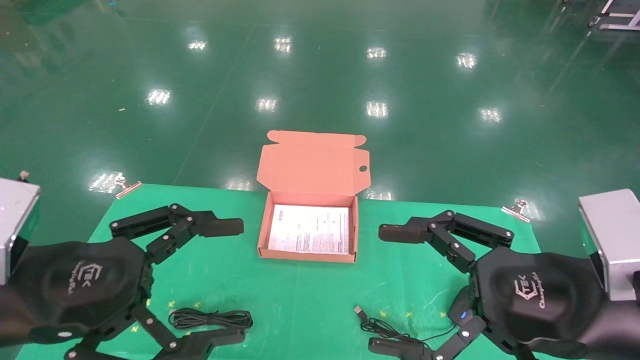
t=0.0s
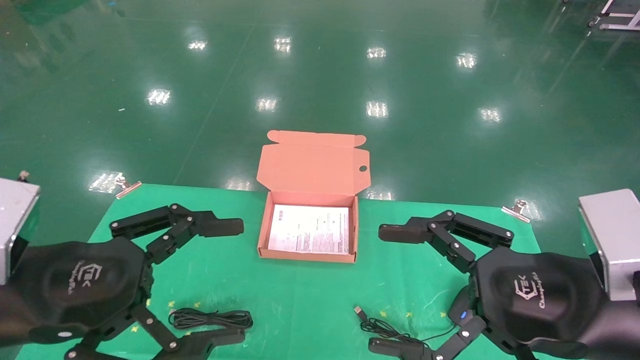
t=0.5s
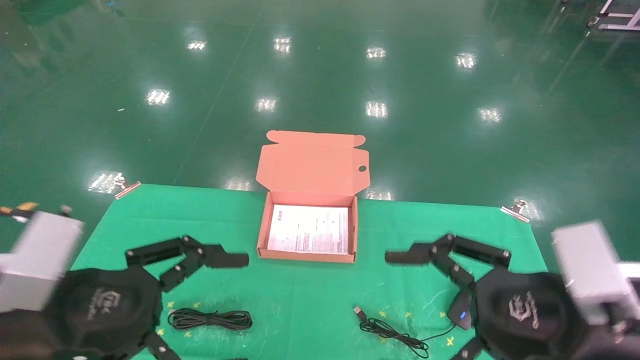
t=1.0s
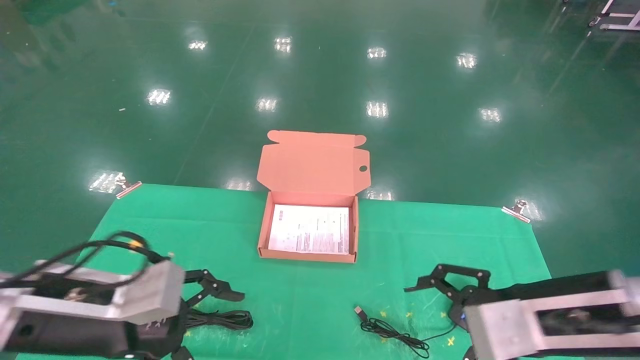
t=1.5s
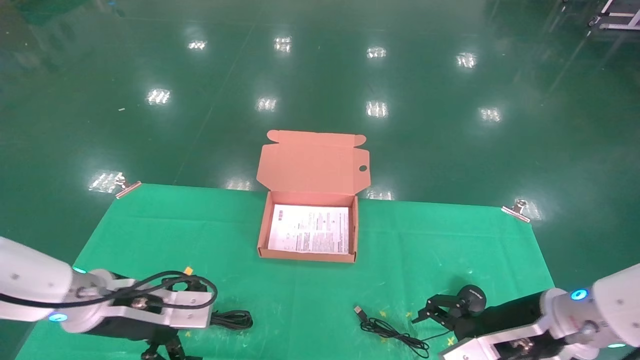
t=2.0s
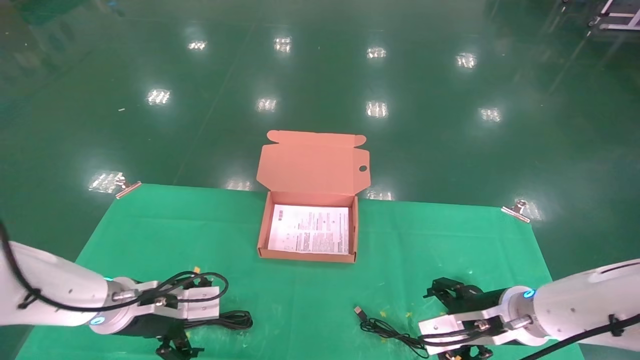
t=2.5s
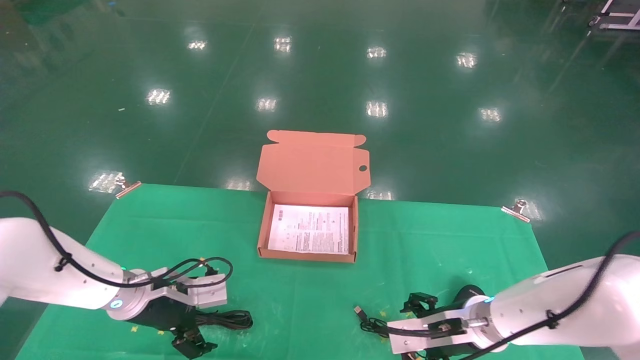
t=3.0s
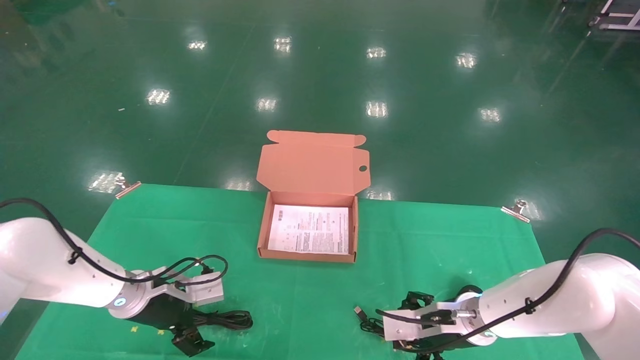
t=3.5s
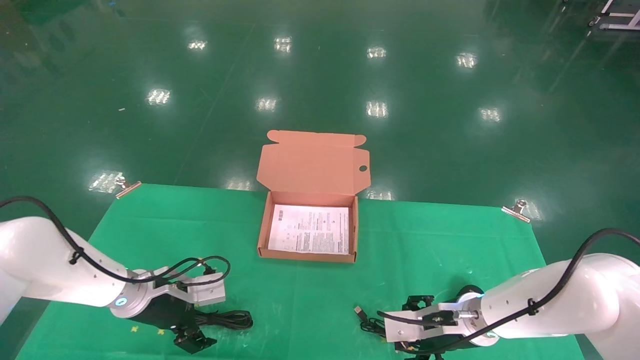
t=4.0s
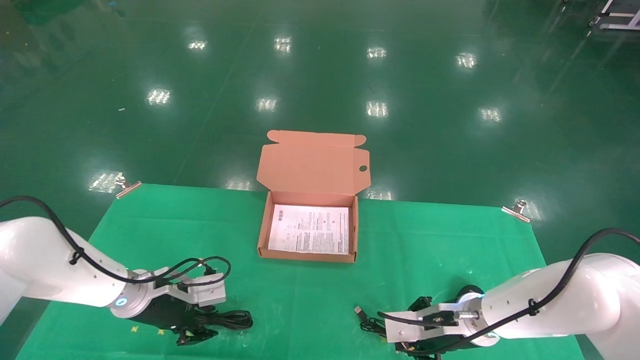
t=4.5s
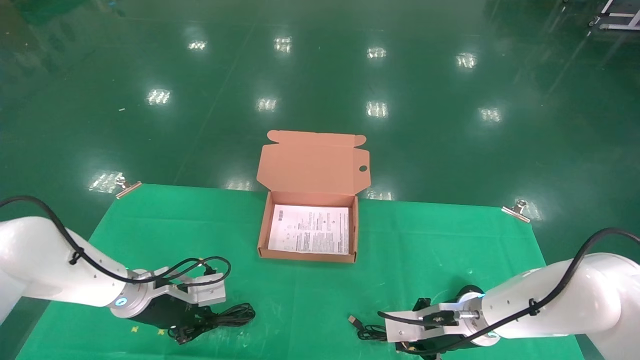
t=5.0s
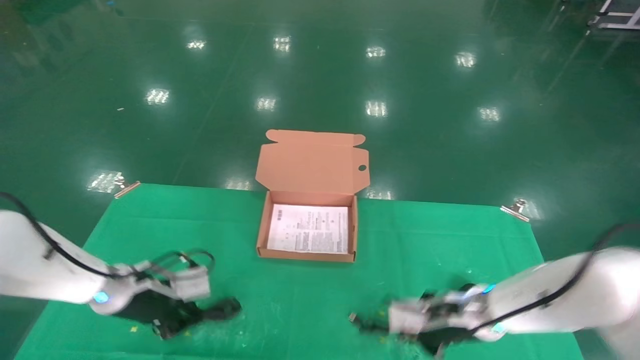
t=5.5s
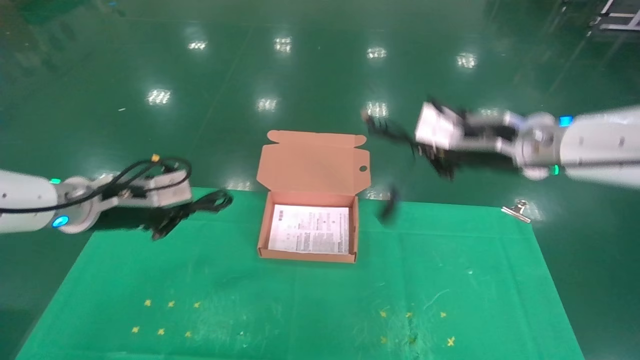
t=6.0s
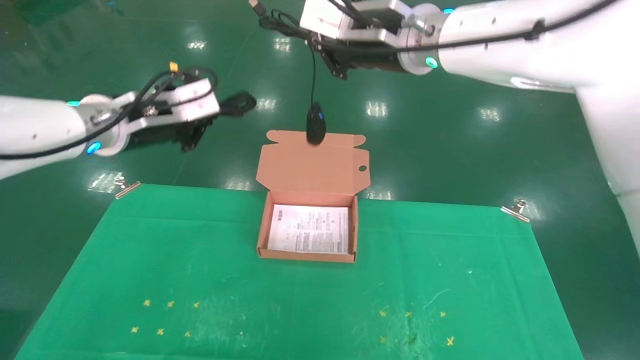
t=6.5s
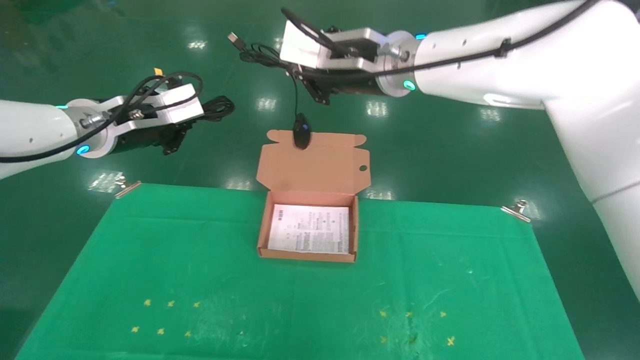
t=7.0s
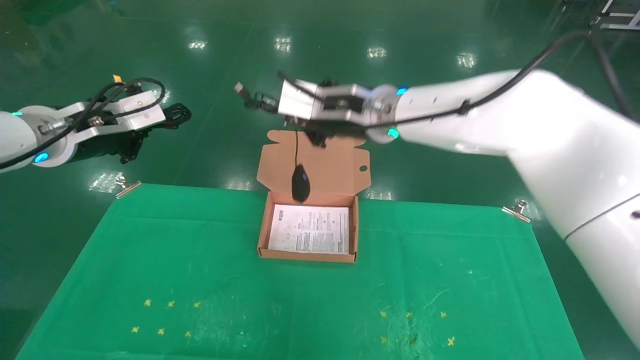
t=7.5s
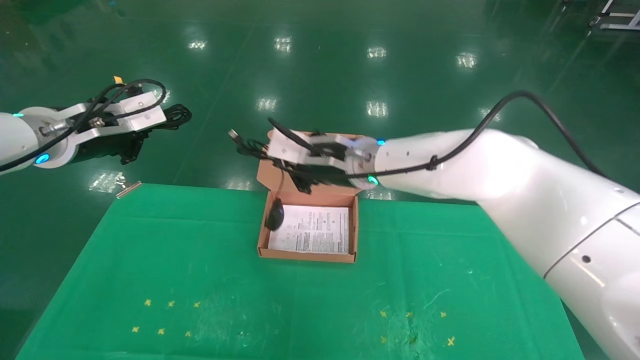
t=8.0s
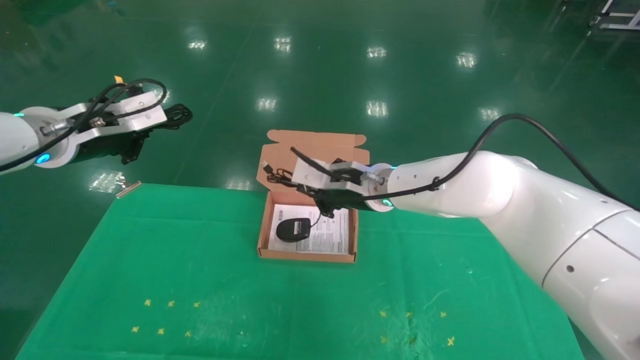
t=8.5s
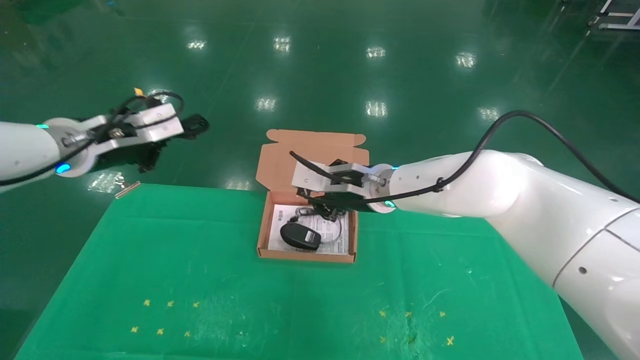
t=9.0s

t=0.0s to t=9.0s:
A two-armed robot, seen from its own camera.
Task of the whole recording: grasp data cable left put into box grasp mouse right put into box.
Step, t=1.0s to t=5.0s: Grab and pick up both the mouse and power cord from the accessory packaging area at the same time.
t=0.0s to t=2.0s: The two grippers go some 15 cm forward and downward.
t=2.0s to t=4.5s: The two grippers go roughly 10 cm forward and downward. The right gripper closes its fingers, while the left gripper closes up.
t=4.5s to t=7.0s: The grippers both shift upward by about 30 cm. The left gripper closes its fingers, while the right gripper closes its fingers.
t=7.0s to t=9.0s: The right gripper heads downward, covering about 15 cm.

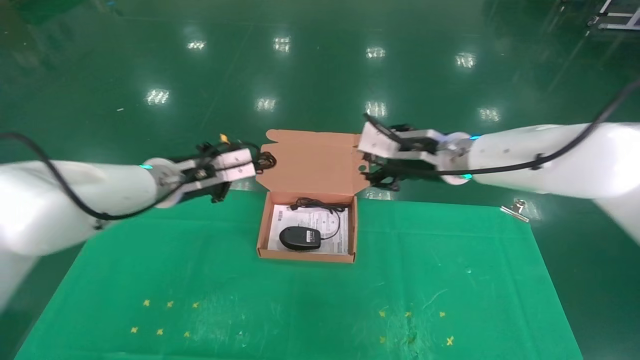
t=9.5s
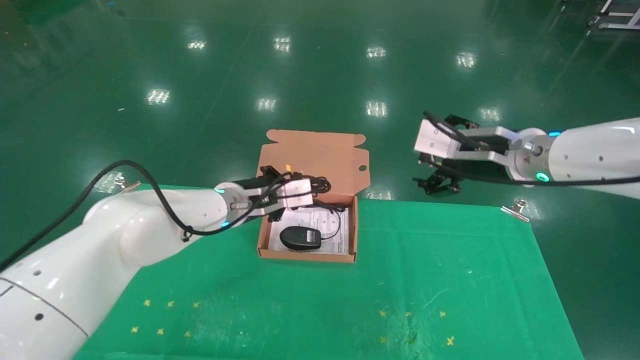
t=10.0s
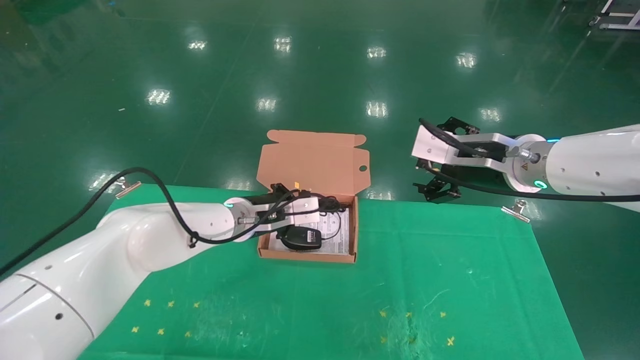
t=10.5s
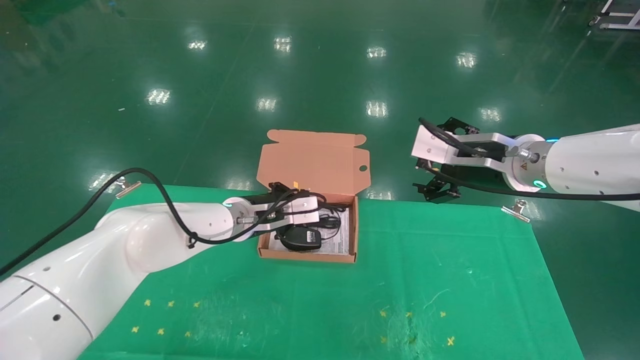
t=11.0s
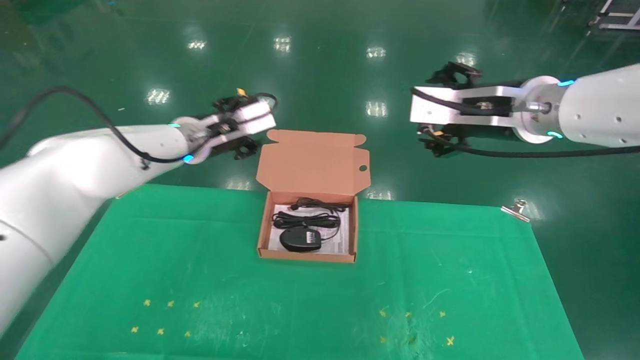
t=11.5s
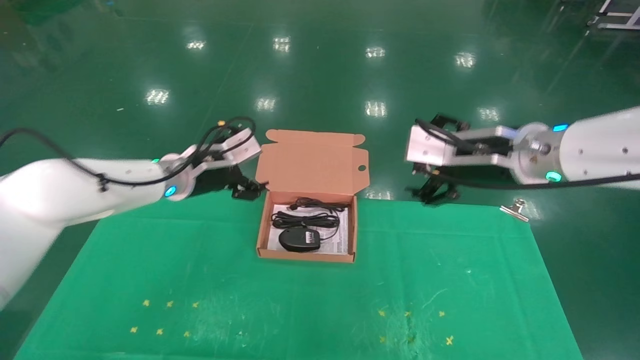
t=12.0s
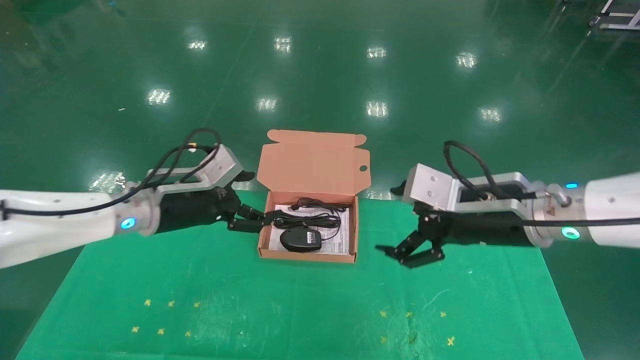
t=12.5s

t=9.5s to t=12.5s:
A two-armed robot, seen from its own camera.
Task of the whole recording: grasp data cable left put into box grasp mouse right put into box.
t=9.5s to t=11.0s: The right gripper heads to the right and backward, covering some 10 cm, and opens its fingers, while the left gripper moves to the right and downward, some 10 cm.
t=11.0s to t=12.5s: The left gripper shifts roughly 10 cm to the left and backward, and opens. Meanwhile the right gripper changes place by about 5 cm.

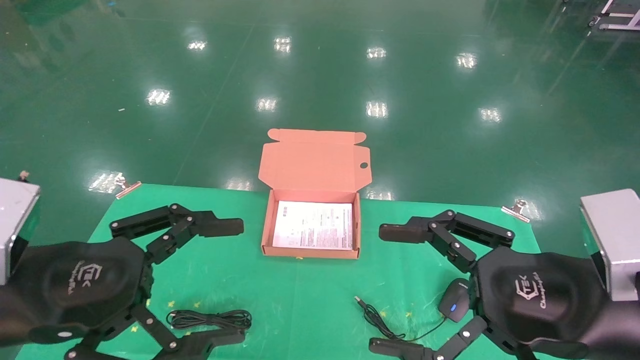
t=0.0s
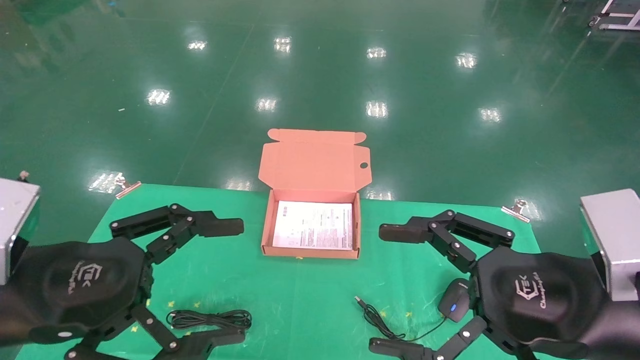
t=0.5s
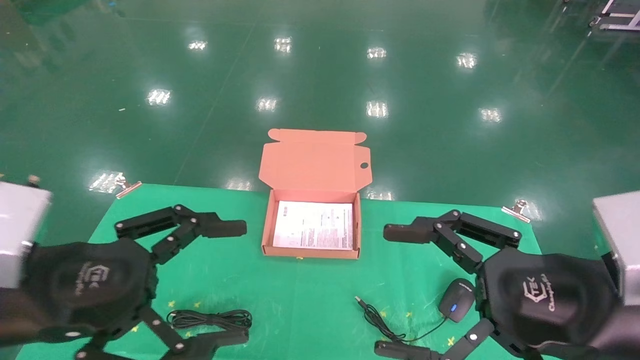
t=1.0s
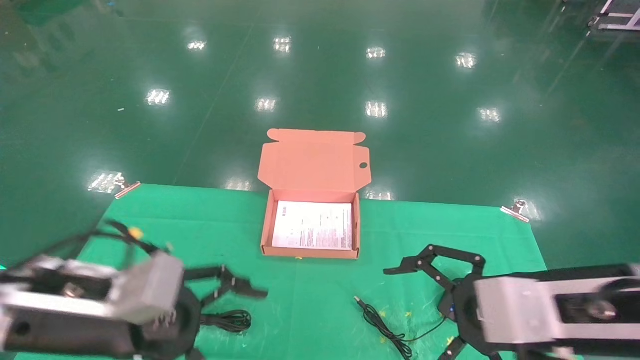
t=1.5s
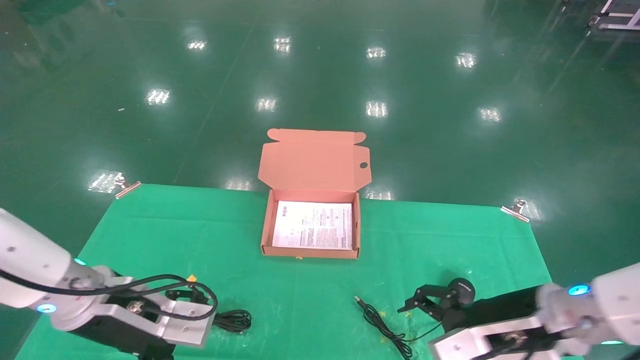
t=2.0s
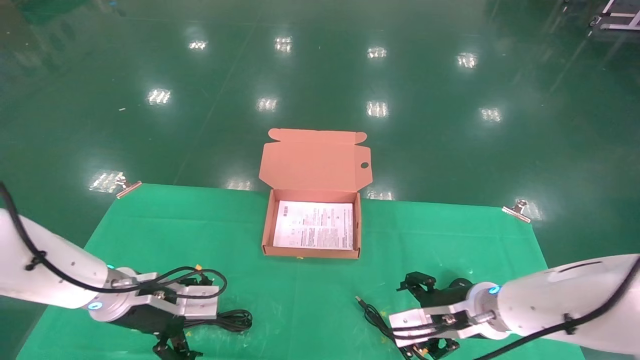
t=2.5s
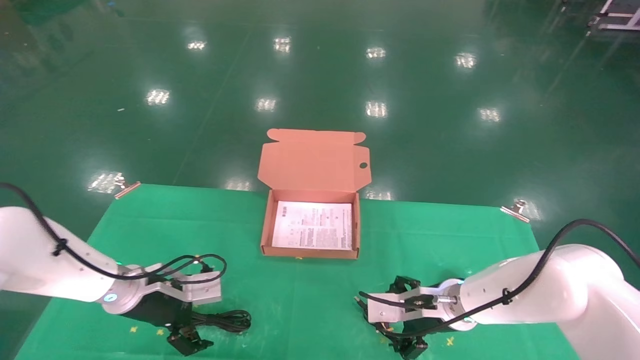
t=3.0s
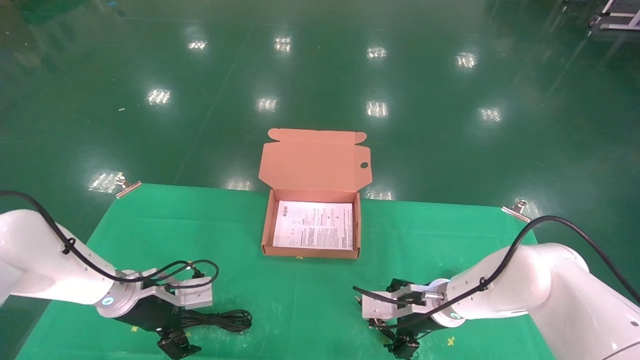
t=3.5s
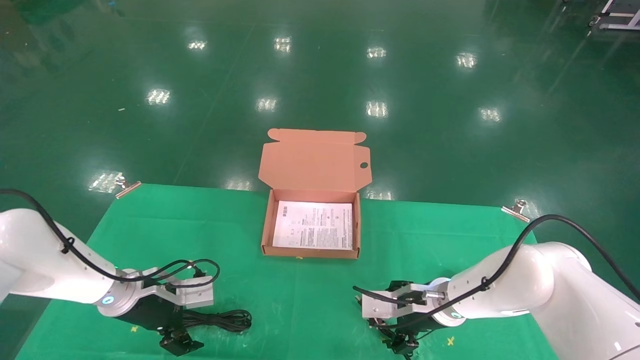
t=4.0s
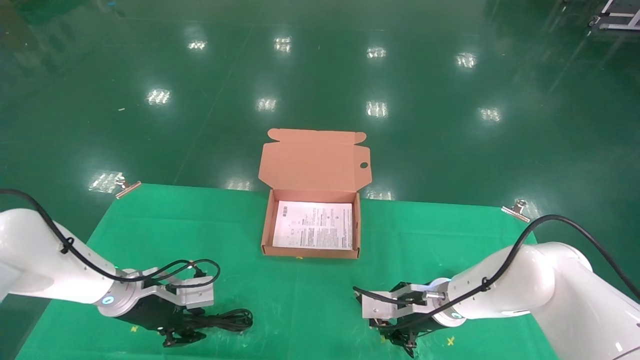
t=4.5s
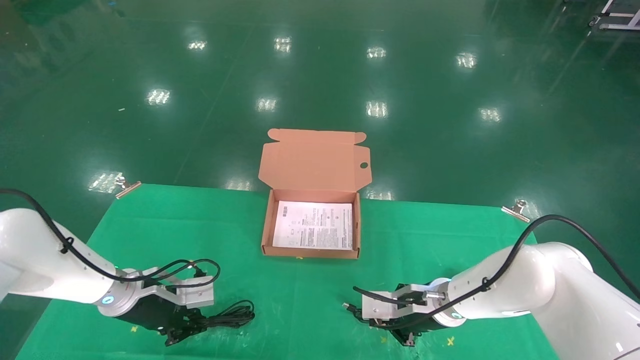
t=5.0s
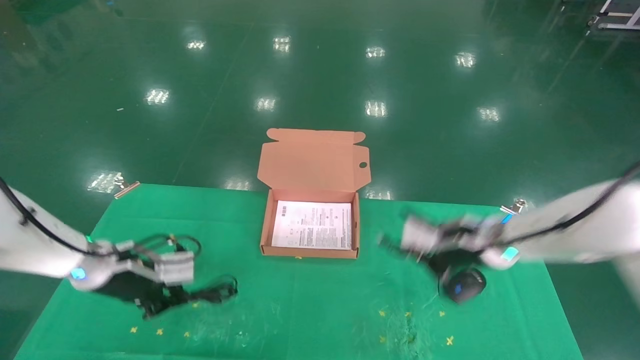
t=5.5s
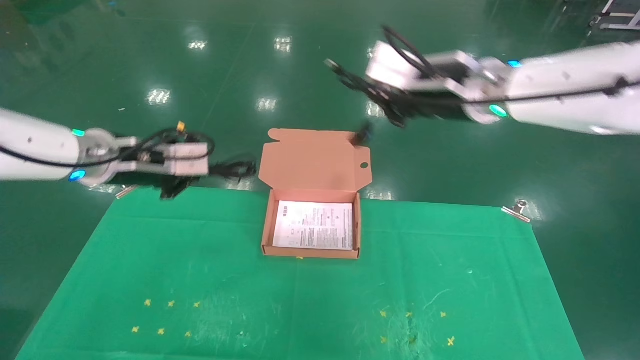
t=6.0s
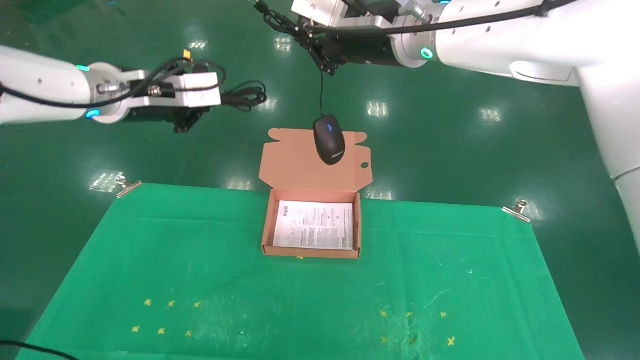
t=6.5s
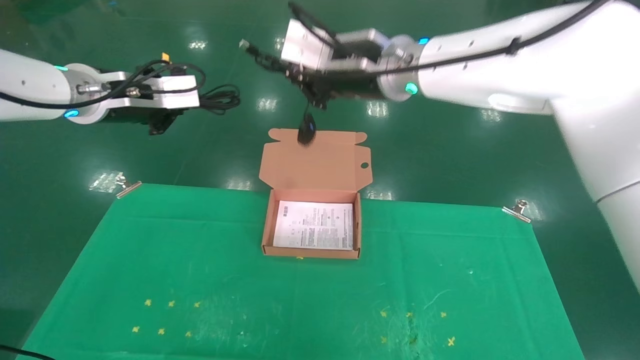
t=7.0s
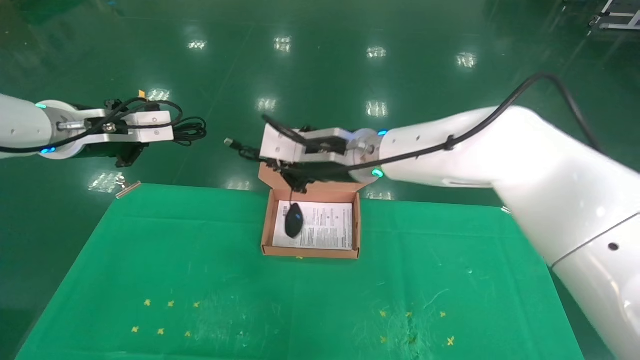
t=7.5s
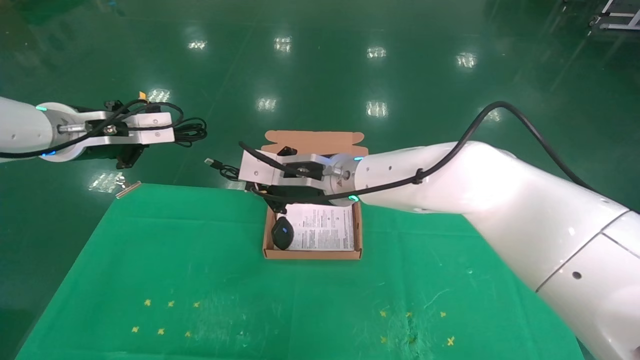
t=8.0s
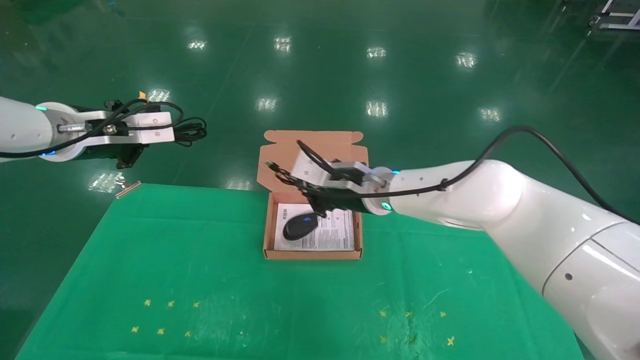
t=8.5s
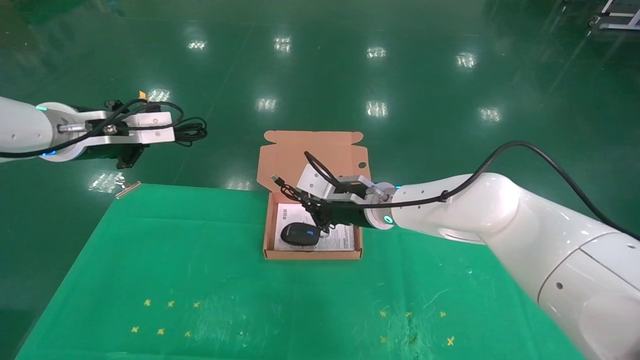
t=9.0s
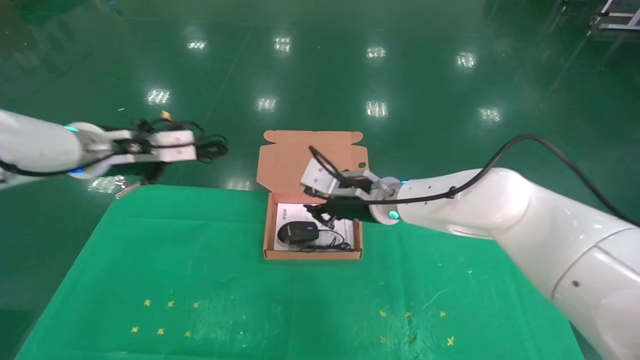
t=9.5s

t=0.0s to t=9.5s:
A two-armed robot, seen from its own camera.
Task of the whole recording: grasp data cable left put into box grasp mouse right put into box.
Step, t=1.0s to t=5.5s: Grab and pick up both the mouse and power cord from the accessory packaging area at the same time.
t=0.0s to t=2.0s: The two grippers go roughly 15 cm forward and downward.
t=2.0s to t=4.0s: The right gripper is displaced forward, downward and to the left by some 15 cm. Meanwhile the left gripper is displaced forward and downward by some 15 cm.
t=4.0s to t=5.5s: The right gripper goes approximately 15 cm upward, and closes; the left gripper is displaced upward by approximately 10 cm, and closes up.
t=5.5s to t=7.5s: The left gripper shifts approximately 20 cm upward; the right gripper is displaced to the left and upward by about 20 cm.
t=7.5s to t=9.5s: The left gripper shifts by roughly 5 cm; the right gripper heads downward and to the right, covering roughly 10 cm.
